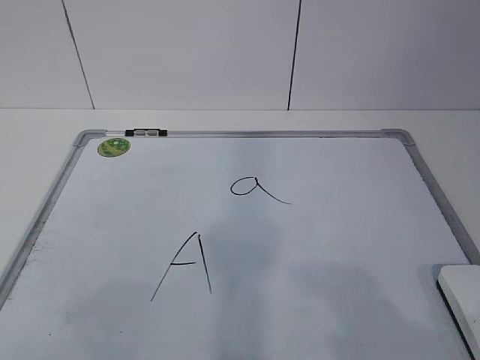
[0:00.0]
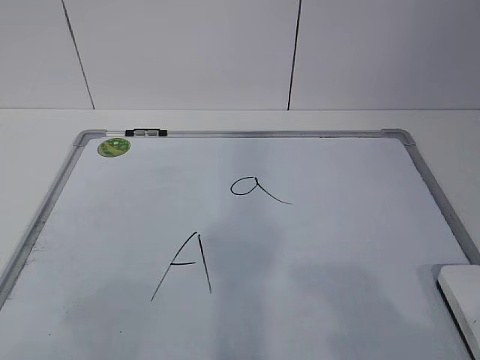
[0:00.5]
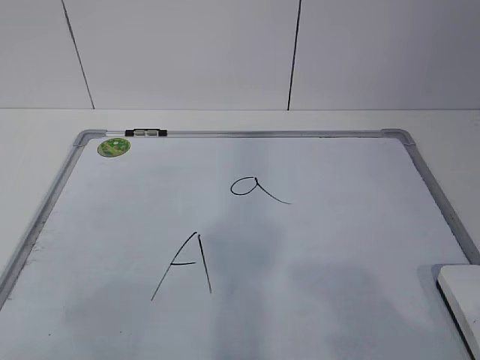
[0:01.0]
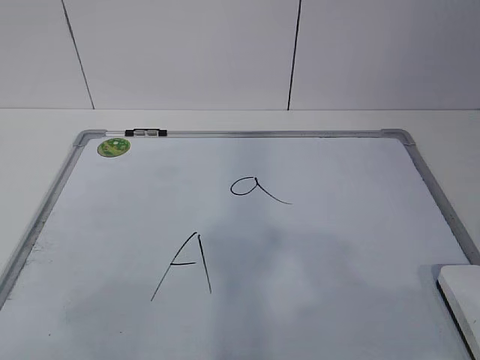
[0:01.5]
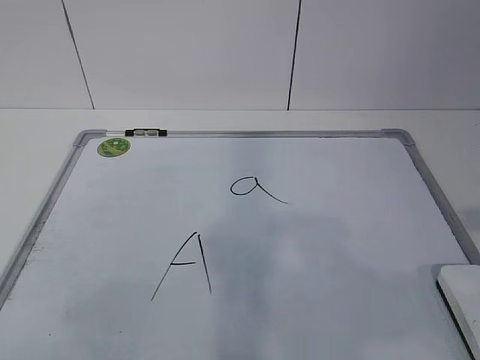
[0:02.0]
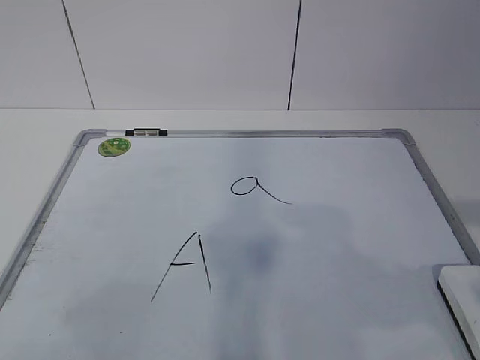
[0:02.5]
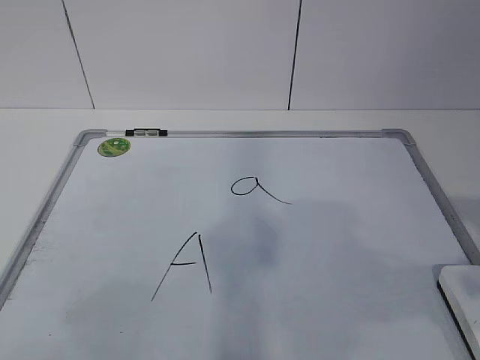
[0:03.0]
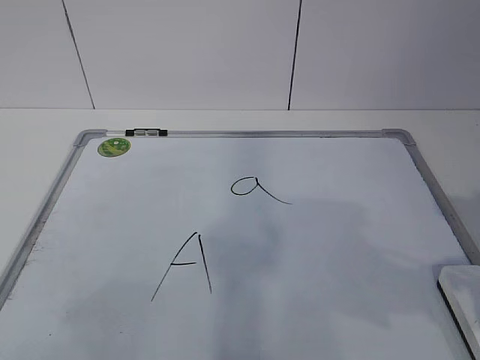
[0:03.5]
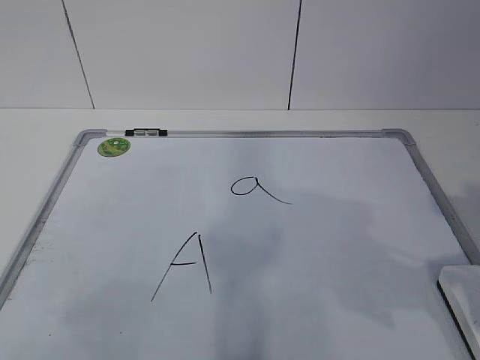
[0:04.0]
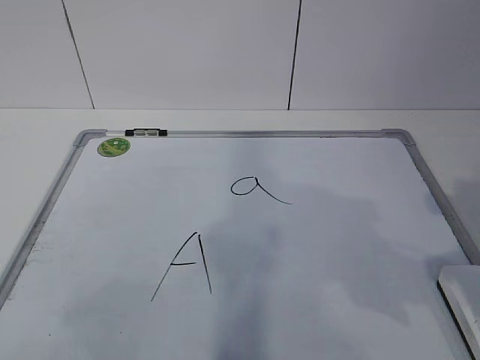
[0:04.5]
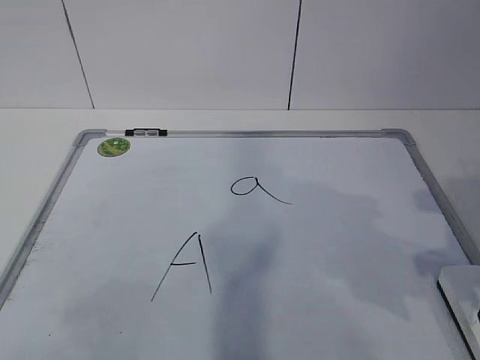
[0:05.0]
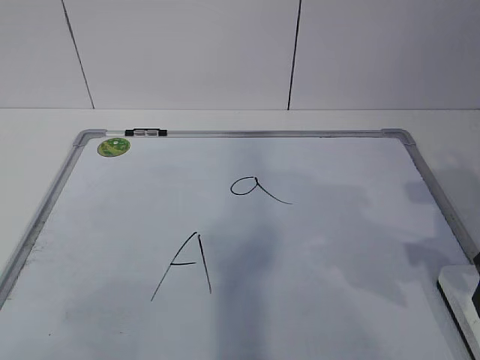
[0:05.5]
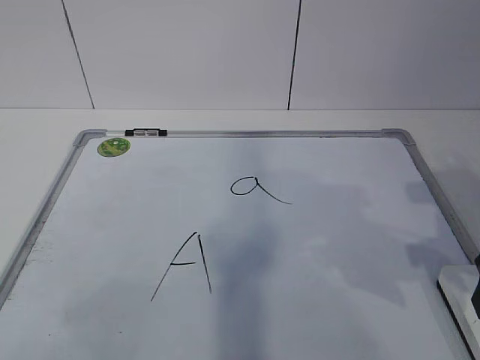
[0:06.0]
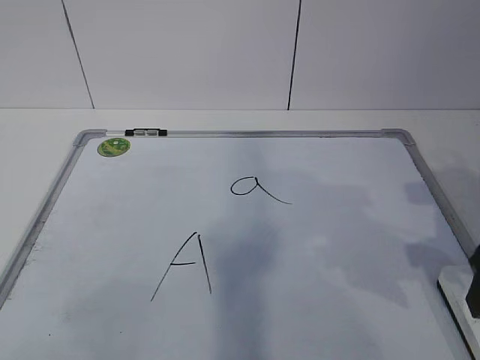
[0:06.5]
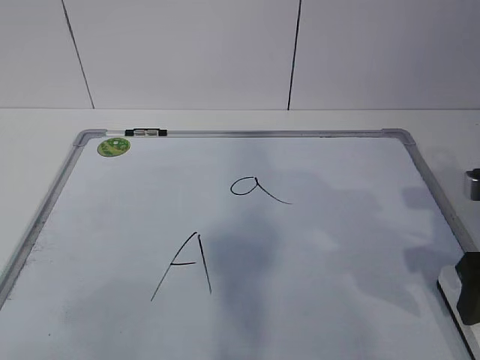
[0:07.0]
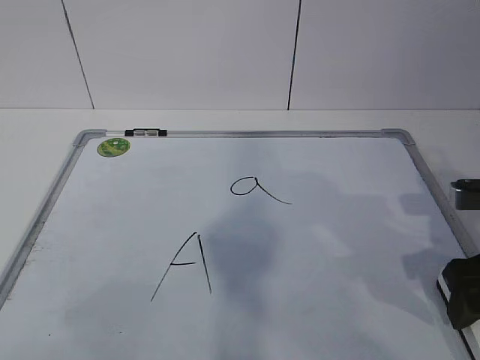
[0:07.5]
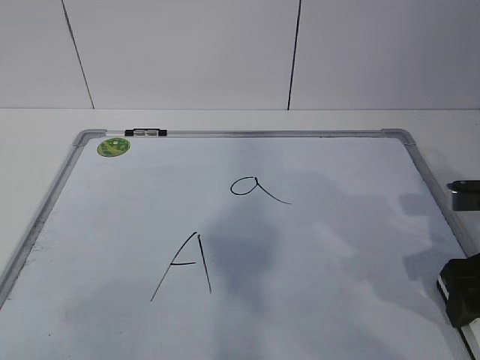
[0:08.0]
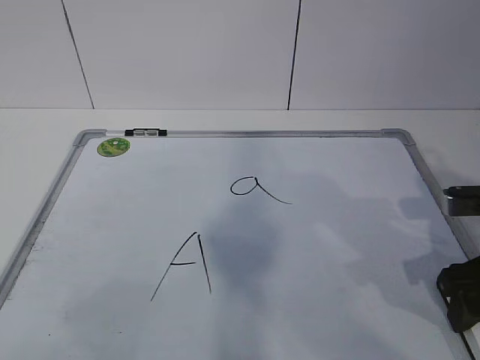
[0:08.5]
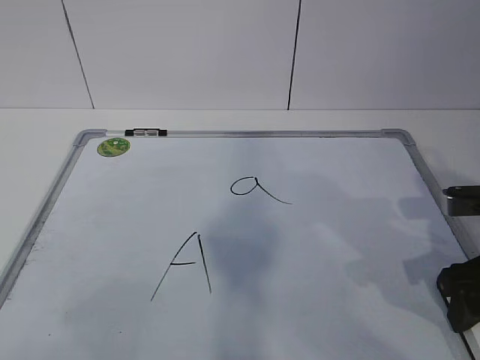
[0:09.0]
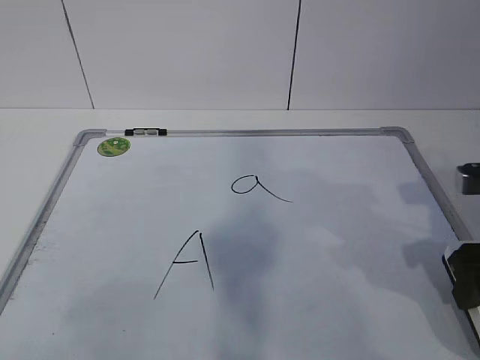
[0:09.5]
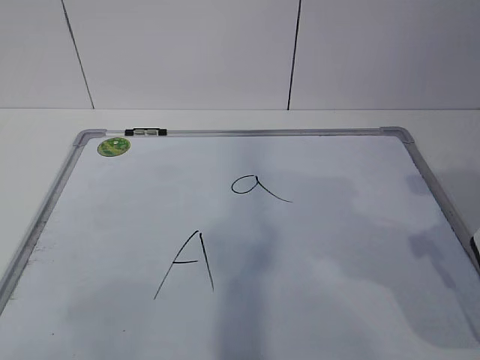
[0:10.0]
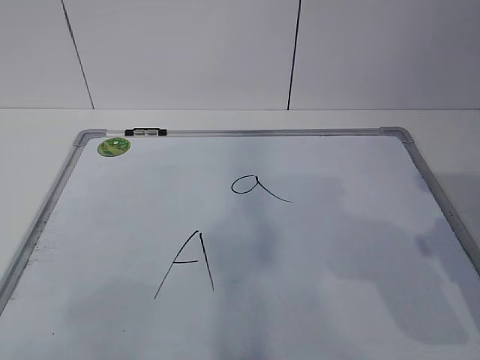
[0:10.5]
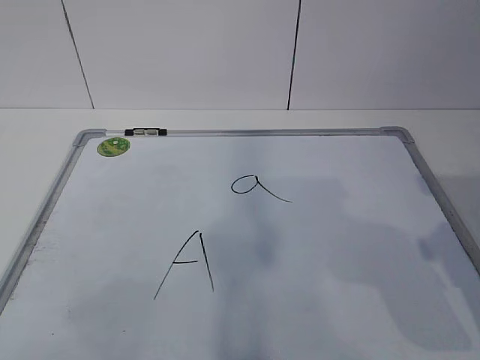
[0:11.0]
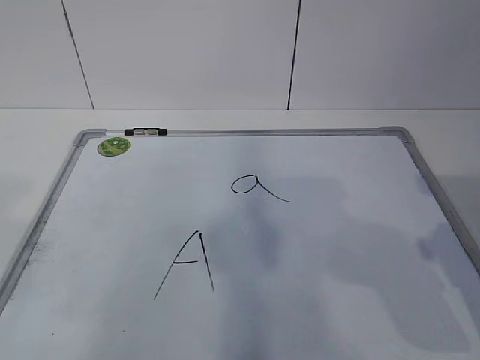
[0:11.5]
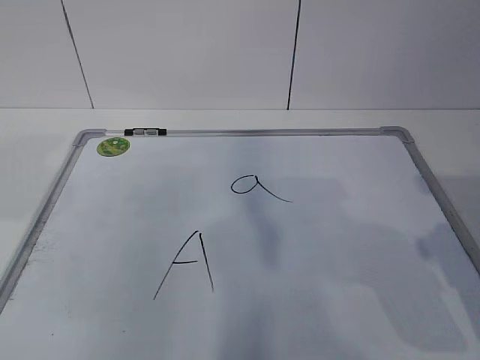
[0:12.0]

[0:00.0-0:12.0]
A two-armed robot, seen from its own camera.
Task of the whole recording: pick up the eraser on the blackboard and erase the letter "a".
4.0 to 6.0 s: The right gripper is displaced forward by some 5 cm.
6.0 to 8.0 s: The right gripper heads downward, covering some 5 cm, and opens up.
8.0 to 10.0 s: The right gripper moves upward, approximately 5 cm, and closes up.

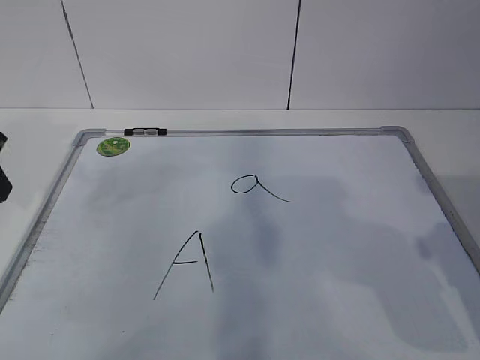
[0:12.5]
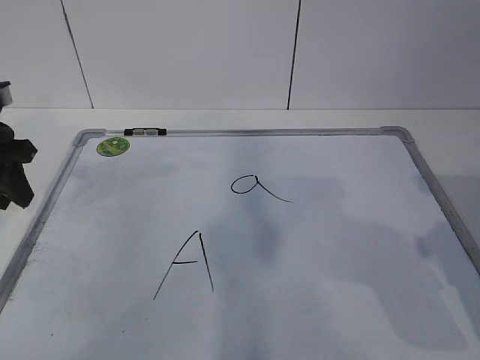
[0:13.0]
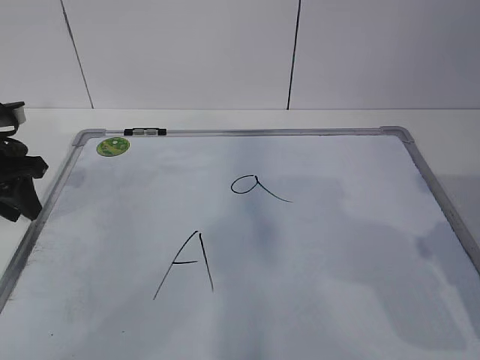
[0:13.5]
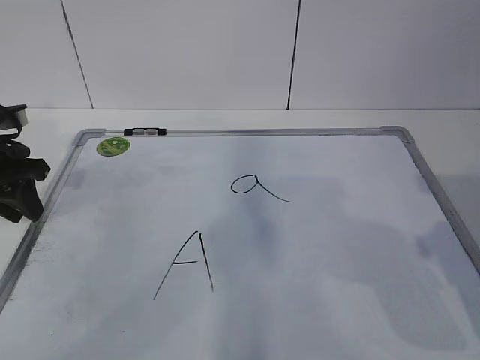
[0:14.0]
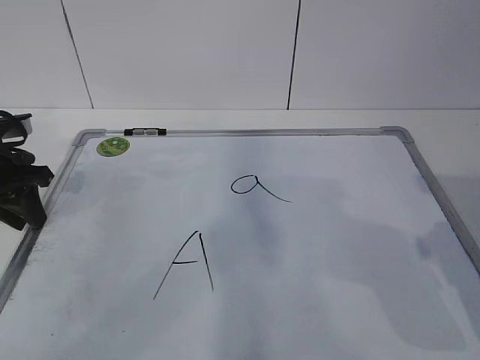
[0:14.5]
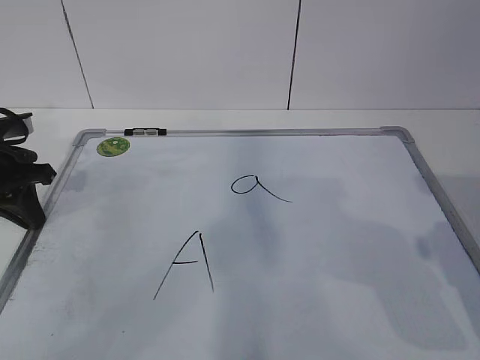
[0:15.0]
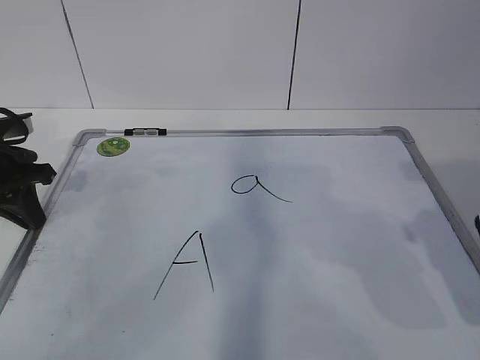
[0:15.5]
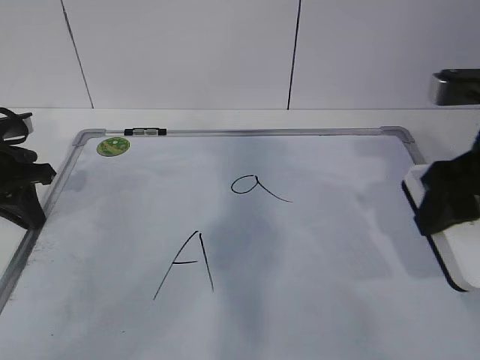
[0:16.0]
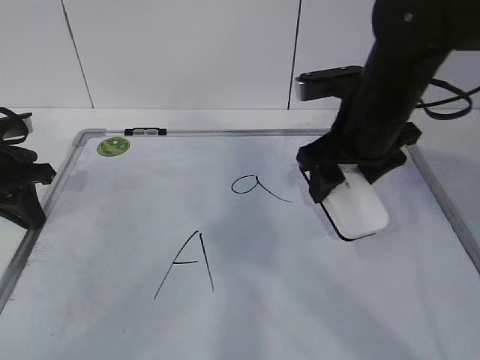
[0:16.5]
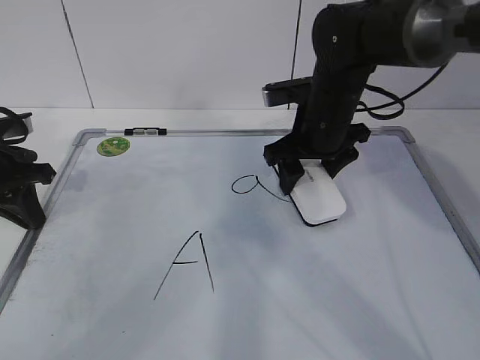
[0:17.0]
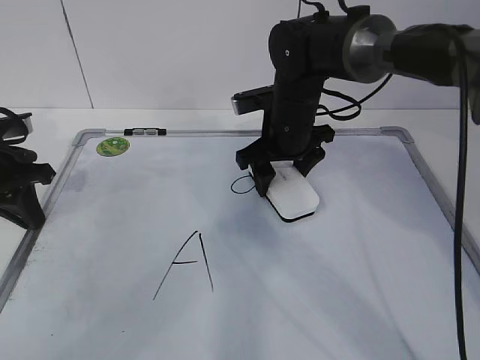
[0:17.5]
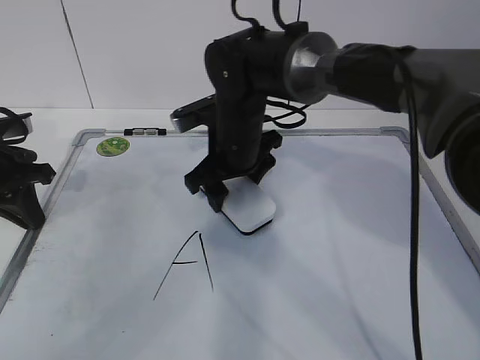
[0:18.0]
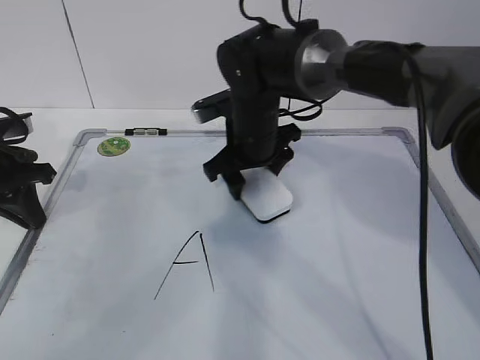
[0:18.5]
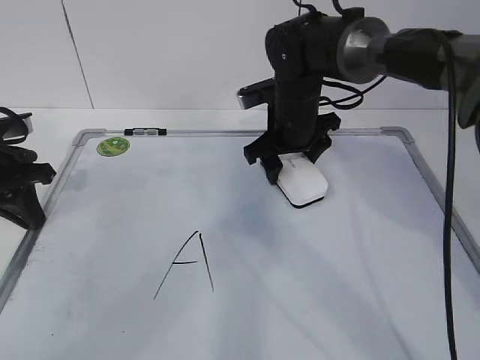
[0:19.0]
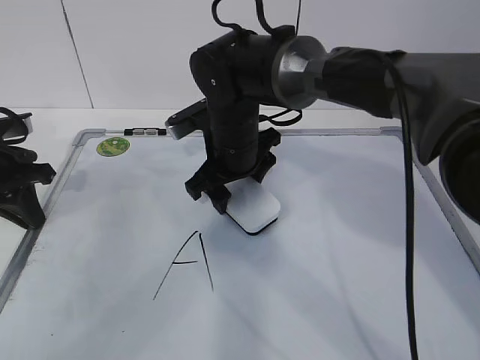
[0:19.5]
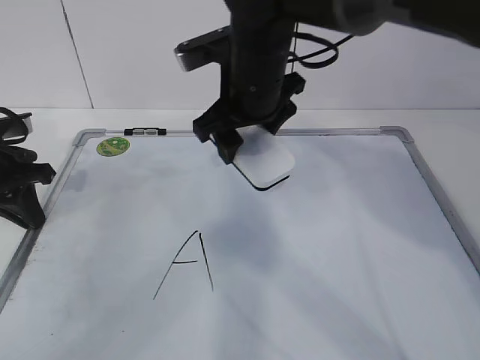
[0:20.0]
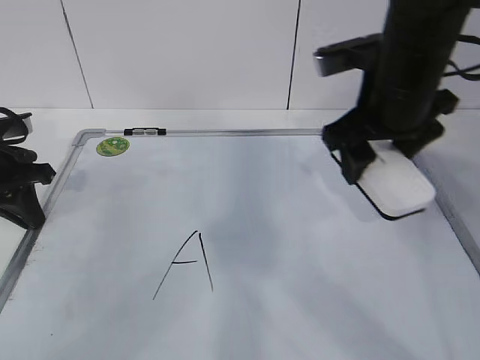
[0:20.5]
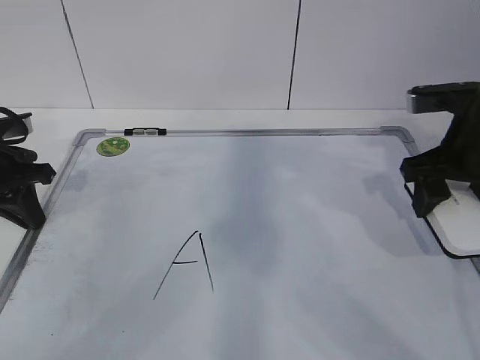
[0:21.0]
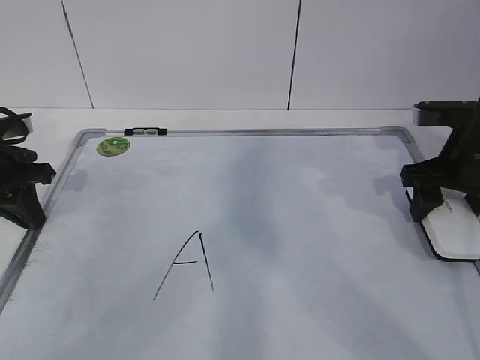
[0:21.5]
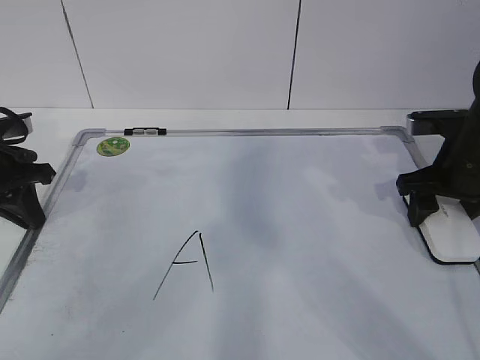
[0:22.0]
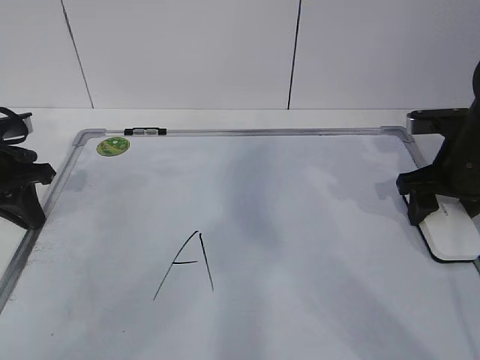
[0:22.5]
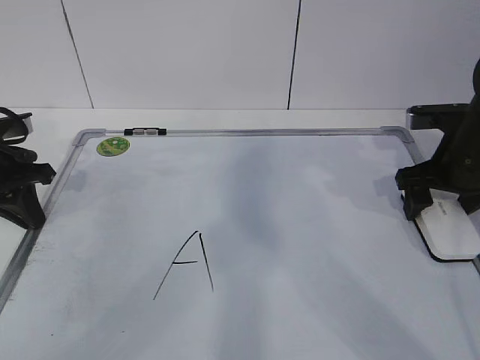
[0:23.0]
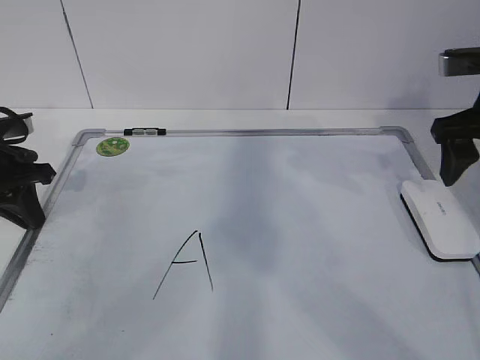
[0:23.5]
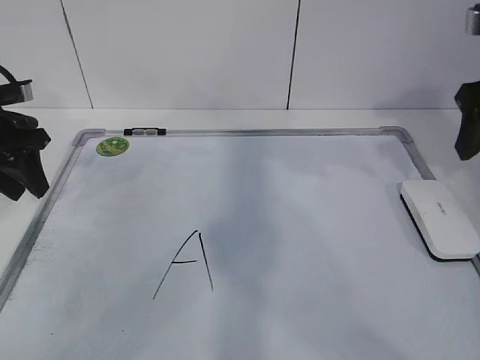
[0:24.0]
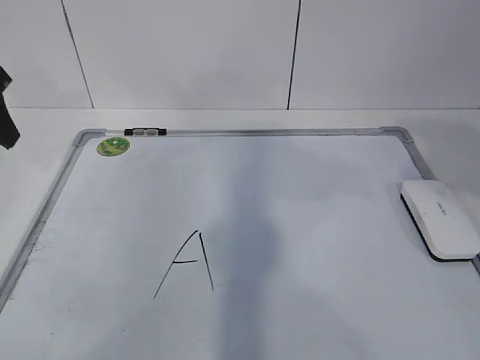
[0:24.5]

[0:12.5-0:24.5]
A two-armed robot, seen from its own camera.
Task of the whole recording: pick up the eraser on the blackboard and erase the letter "a".
Step, 12.5 to 16.0 s: Erase the letter a with your right hand.
Step, 16.5 to 18.5 s: Put down the eraser with your right hand.
12.5 to 14.5 s: The left gripper heads downward and forward, covering about 10 cm.
14.5 to 16.5 s: The right gripper is displaced forward and to the left by roughly 20 cm, while the left gripper closes.
16.5 to 18.5 s: The right gripper is displaced to the left, forward and downward by roughly 15 cm.
18.5 to 20.5 s: The right gripper swings left and right, about 15 cm each way, with 2 reversals.
20.5 to 22.5 s: The right gripper shifts about 15 cm to the right and downward.
22.5 to 24.5 s: The left gripper is displaced upward by some 15 cm, and opens. The right gripper is displaced upward and backward by roughly 20 cm, and opens, then closes again.

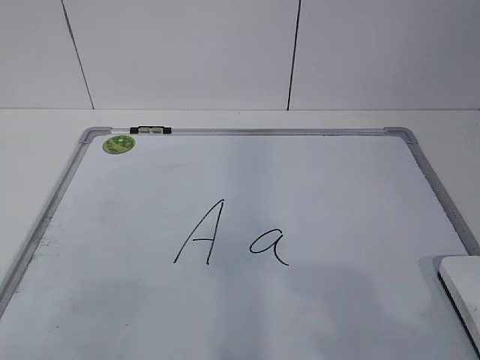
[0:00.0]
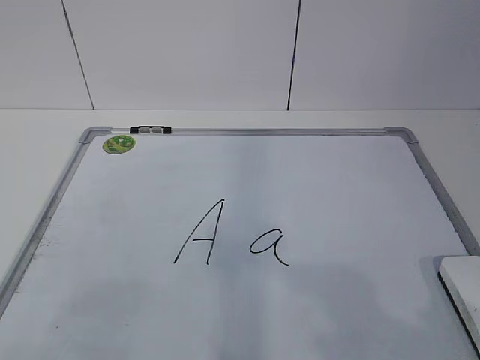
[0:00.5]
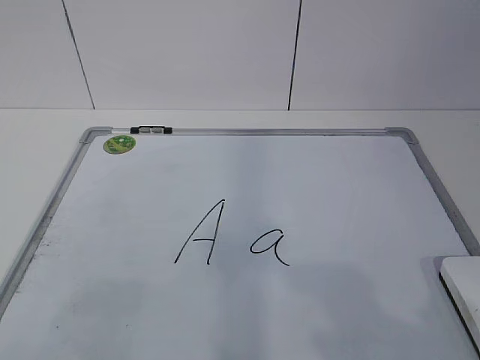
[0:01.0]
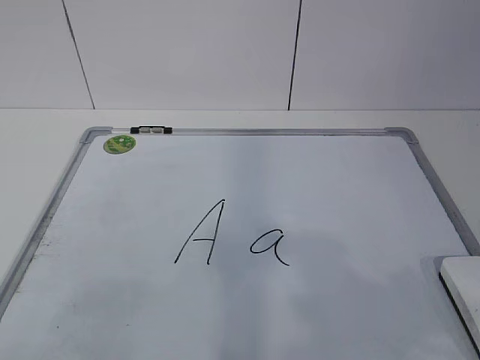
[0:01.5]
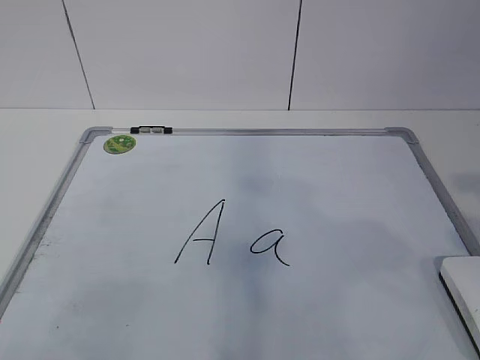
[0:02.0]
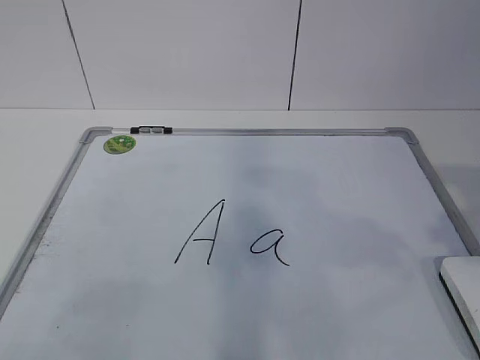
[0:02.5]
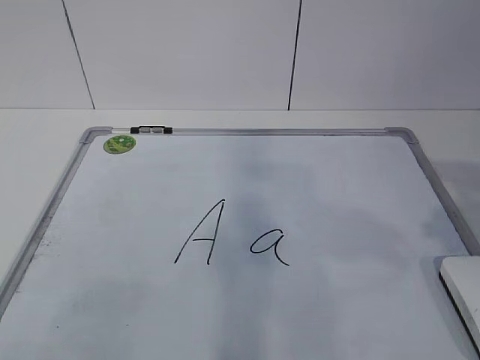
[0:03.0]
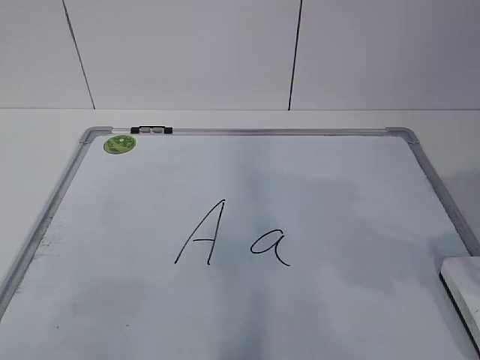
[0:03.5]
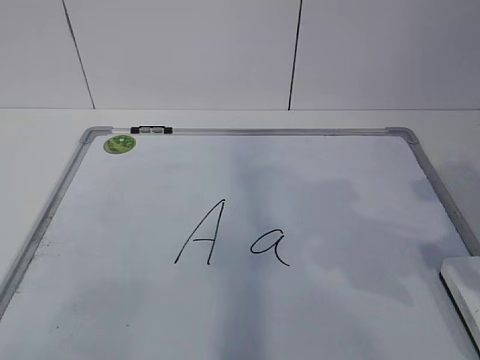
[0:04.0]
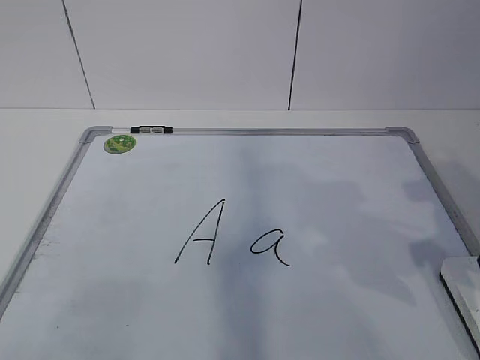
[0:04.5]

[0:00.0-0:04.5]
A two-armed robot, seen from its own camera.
Task of the whole recording: pick up the eraser on the blackboard and erase the letter "a".
2.0 to 4.5 s: The right gripper heads forward and downward, covering about 15 cm.
